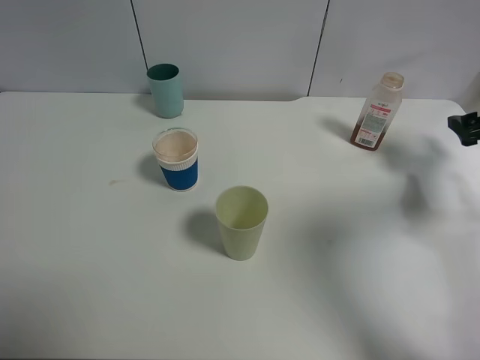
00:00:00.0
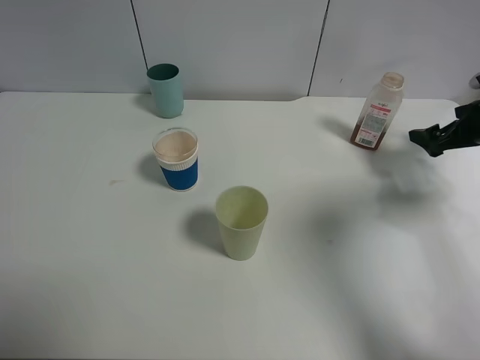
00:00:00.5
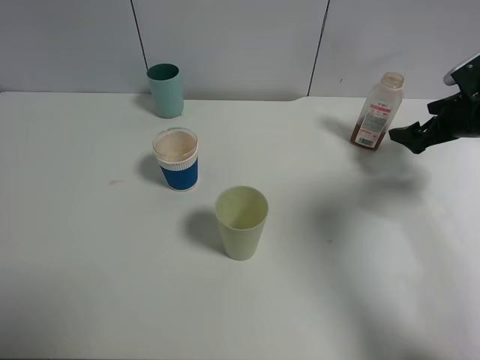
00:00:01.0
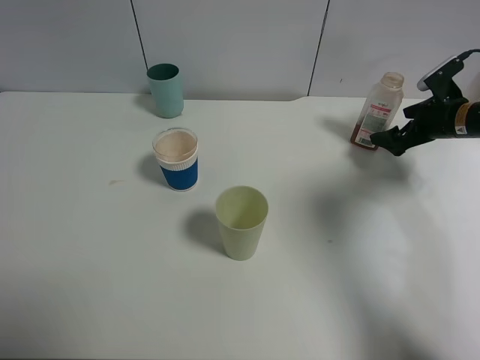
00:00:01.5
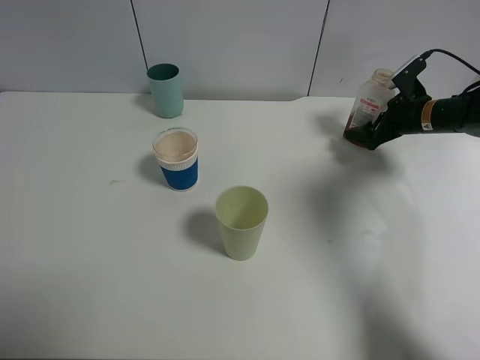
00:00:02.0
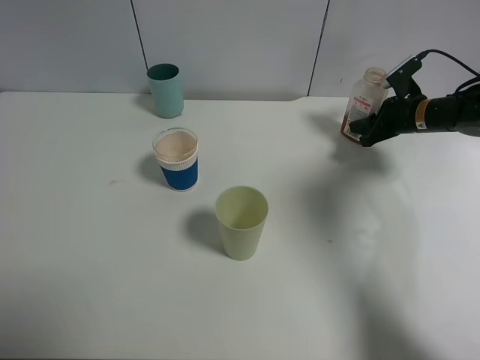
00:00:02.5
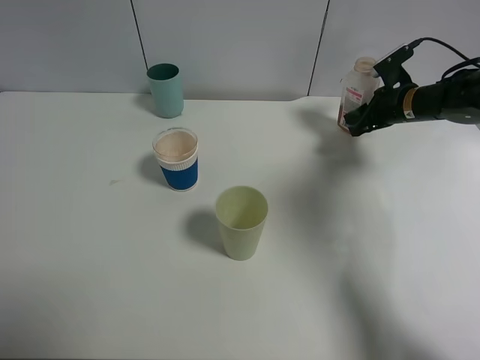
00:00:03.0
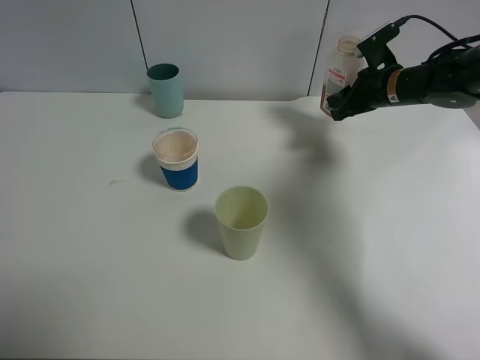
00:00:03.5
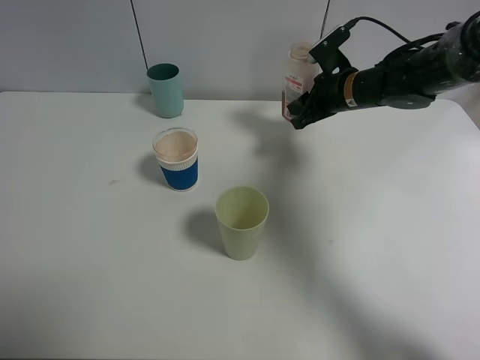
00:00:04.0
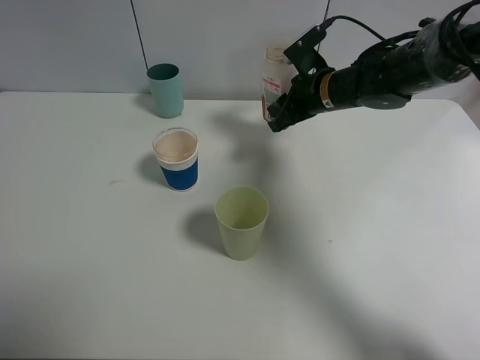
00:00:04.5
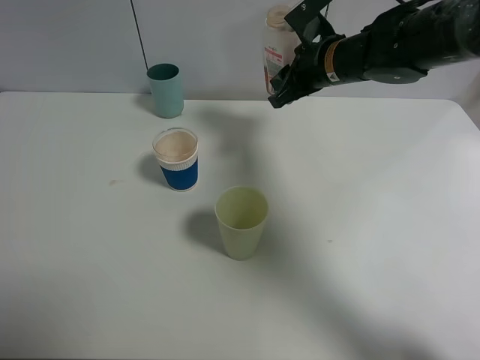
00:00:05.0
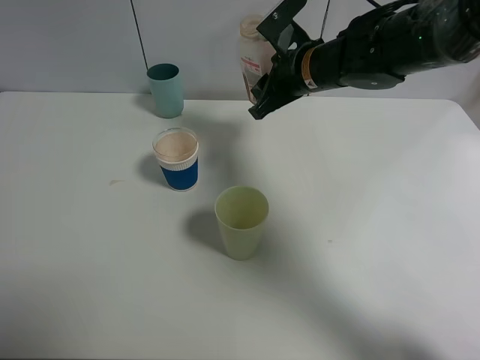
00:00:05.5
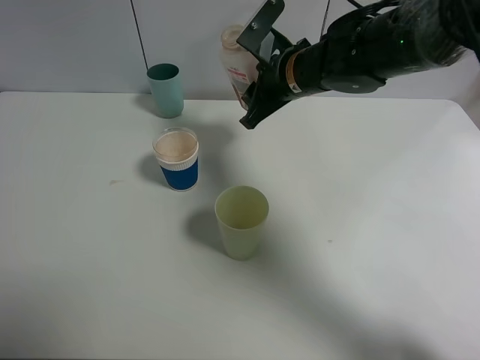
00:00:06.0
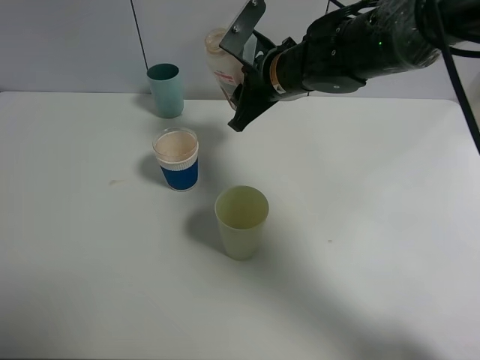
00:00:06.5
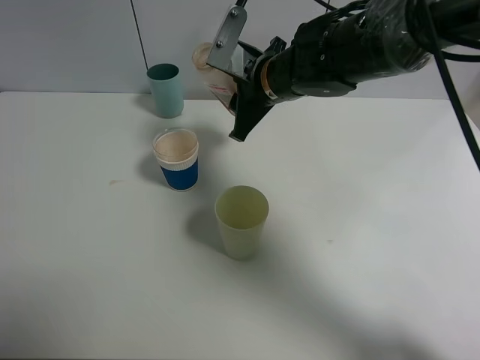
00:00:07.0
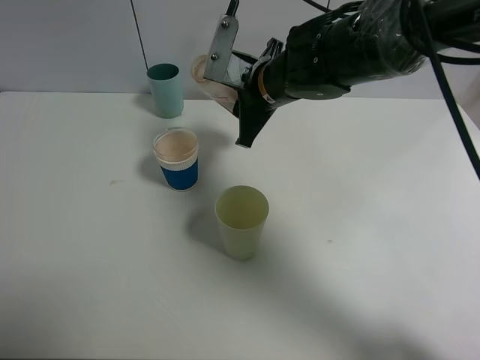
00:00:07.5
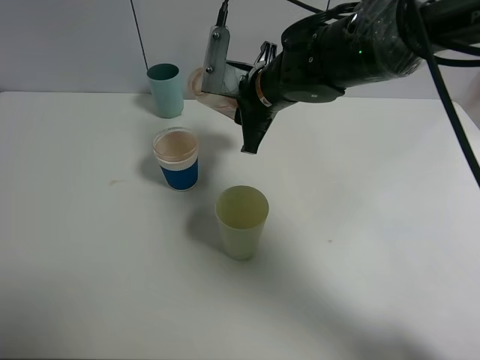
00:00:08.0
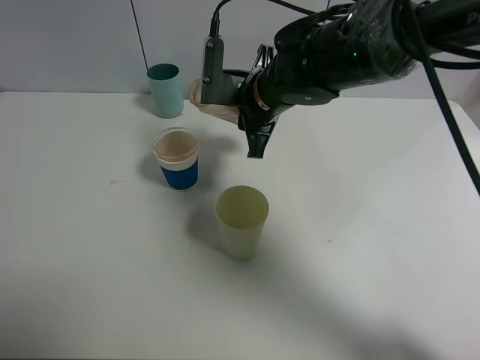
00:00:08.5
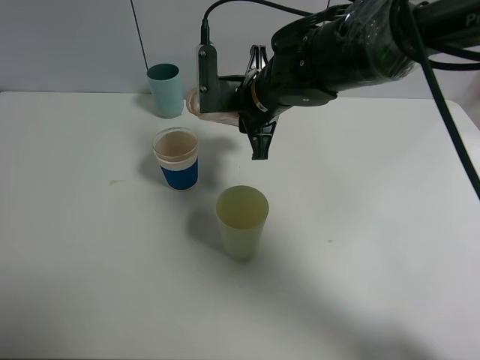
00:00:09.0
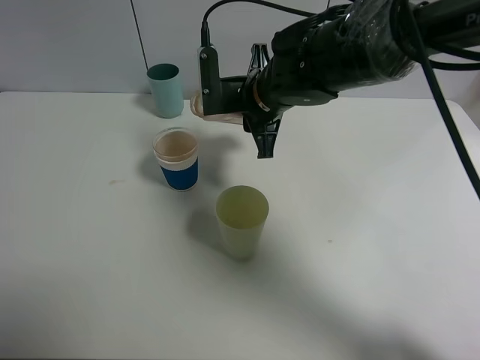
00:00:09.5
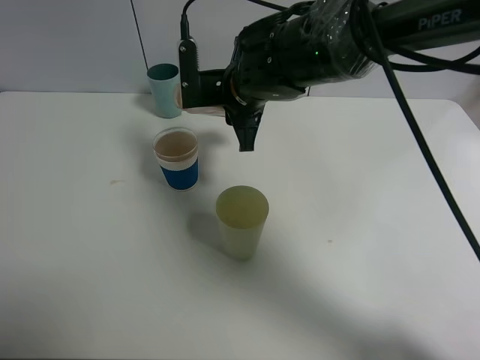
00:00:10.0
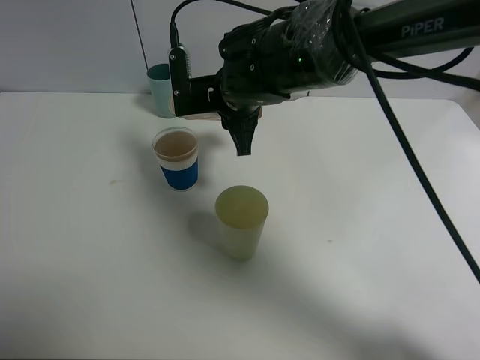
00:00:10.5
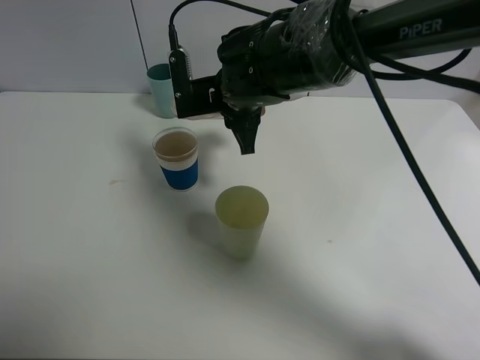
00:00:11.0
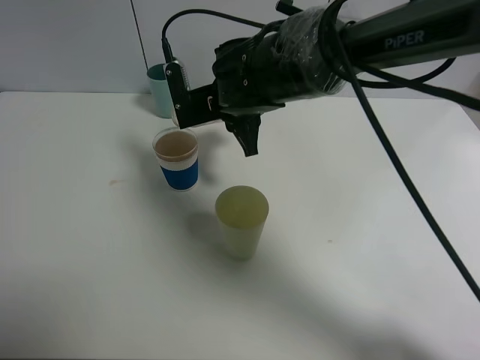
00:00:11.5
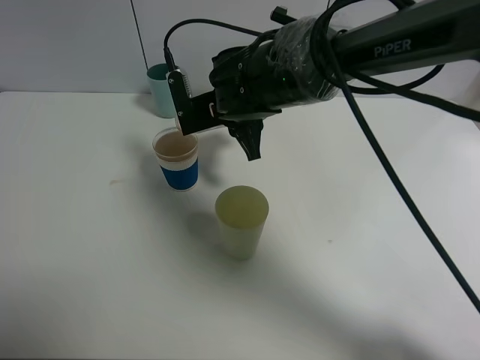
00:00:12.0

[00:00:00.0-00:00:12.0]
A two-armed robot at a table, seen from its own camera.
Task of the whole recording: use a clamp to hold the bottle of the drink, pour the beverage into a random cup, then clamp the cup containing the drink and pour the drink into another random cup.
Step, 00:00:00.0 to 00:00:03.0: Pick up the drink bottle with right gripper.
00:00:00.0 to 00:00:02.0: The right gripper travels to the left, forward and downward by roughly 15 cm.
00:00:02.0 to 00:00:04.0: The right gripper heads to the left, covering about 15 cm, and closes up.
00:00:04.0 to 00:00:06.0: The right gripper heads to the left, backward and upward, covering some 15 cm.
00:00:08.0 to 00:00:10.0: There are only small adjustments of the grippers.
00:00:10.0 to 00:00:12.0: There are only small adjustments of the grippers.

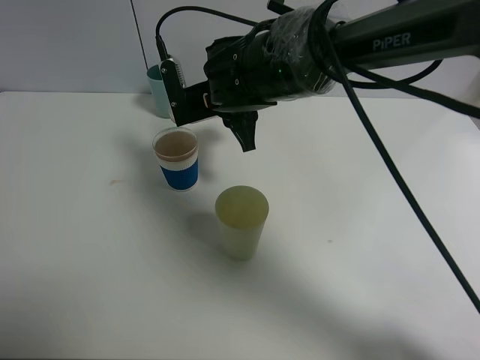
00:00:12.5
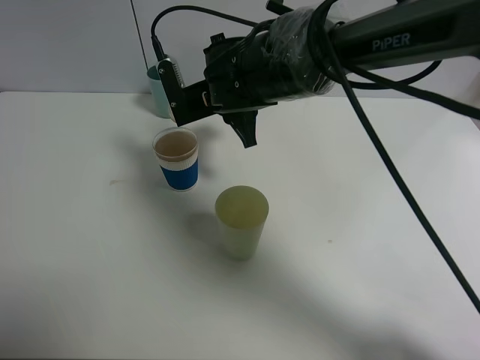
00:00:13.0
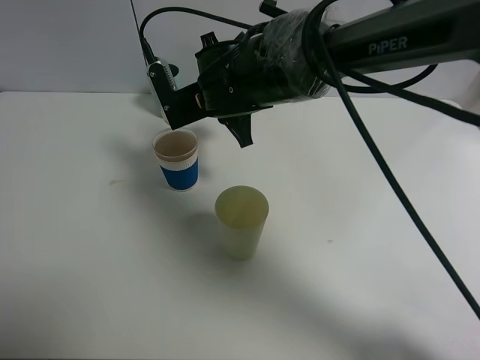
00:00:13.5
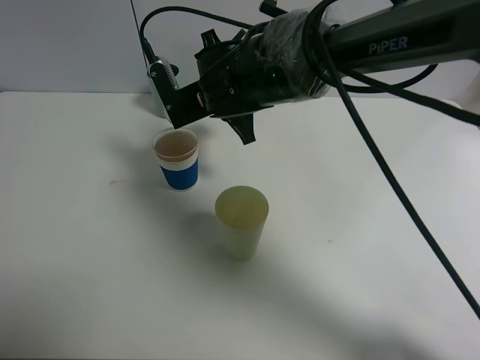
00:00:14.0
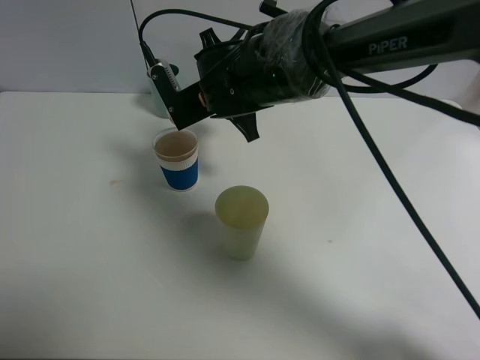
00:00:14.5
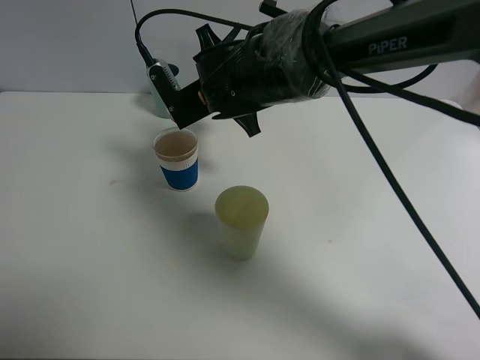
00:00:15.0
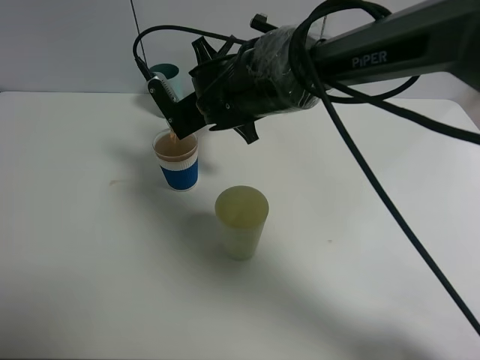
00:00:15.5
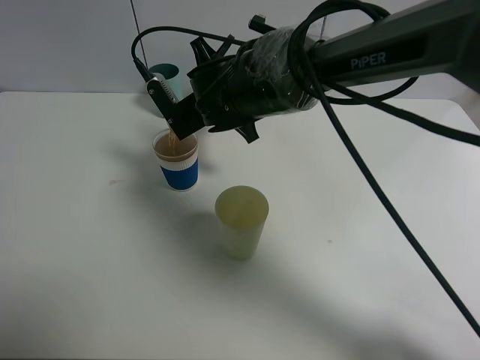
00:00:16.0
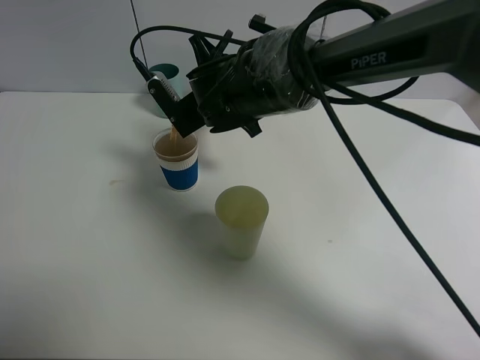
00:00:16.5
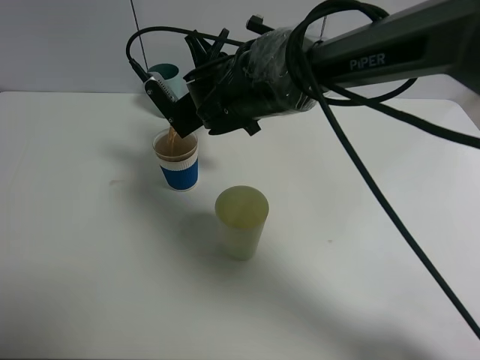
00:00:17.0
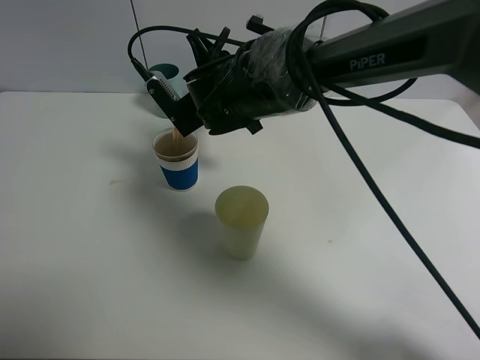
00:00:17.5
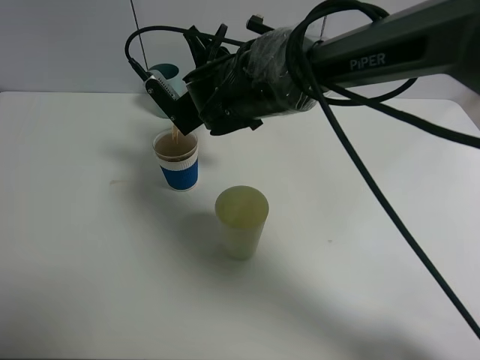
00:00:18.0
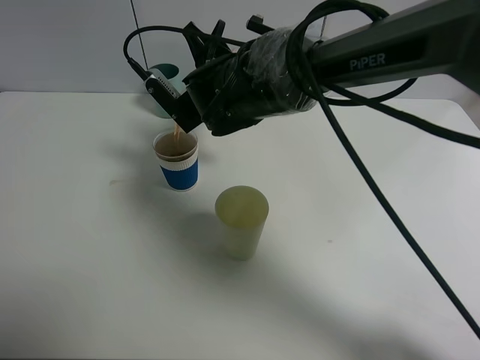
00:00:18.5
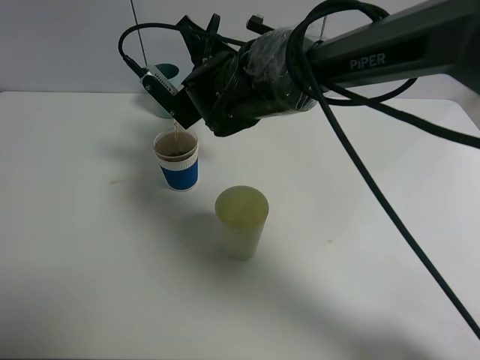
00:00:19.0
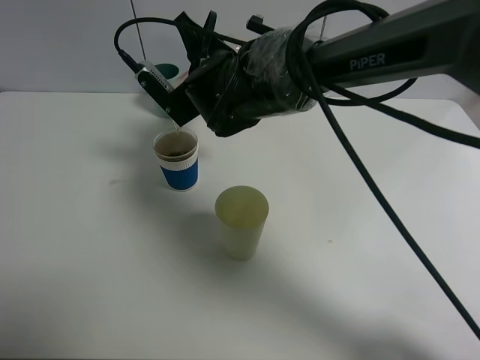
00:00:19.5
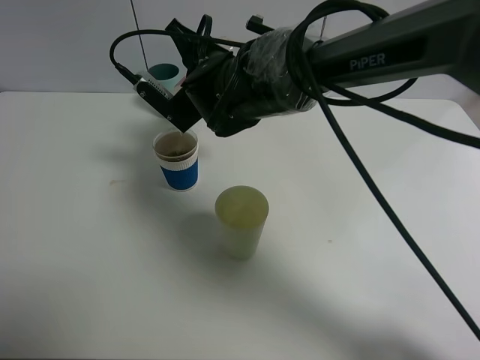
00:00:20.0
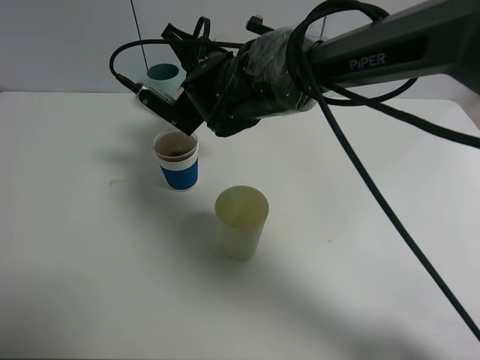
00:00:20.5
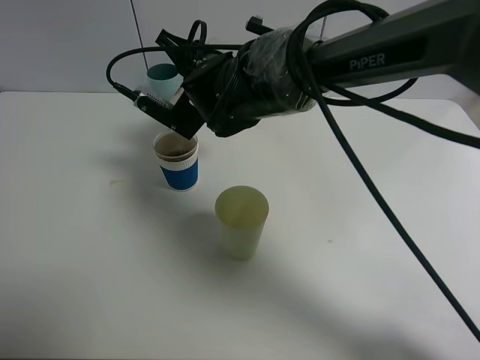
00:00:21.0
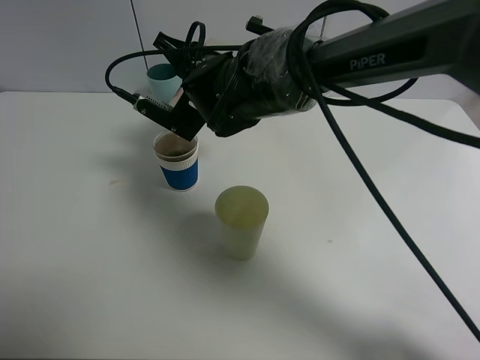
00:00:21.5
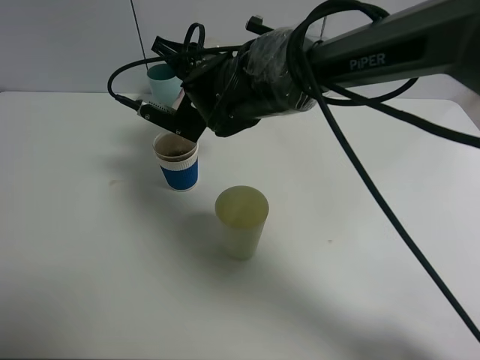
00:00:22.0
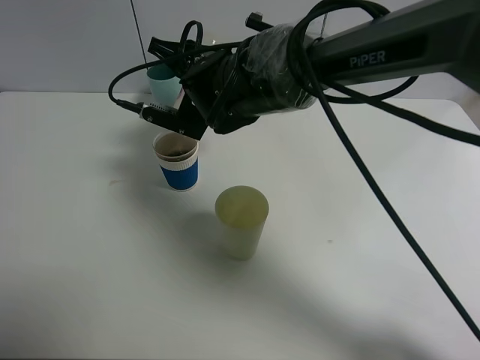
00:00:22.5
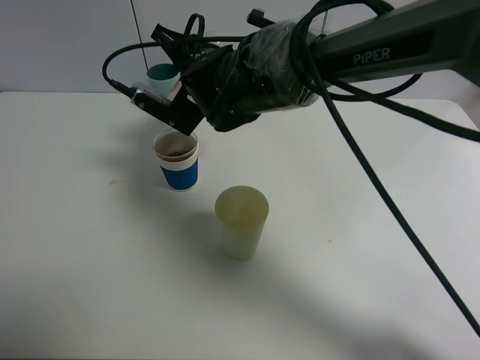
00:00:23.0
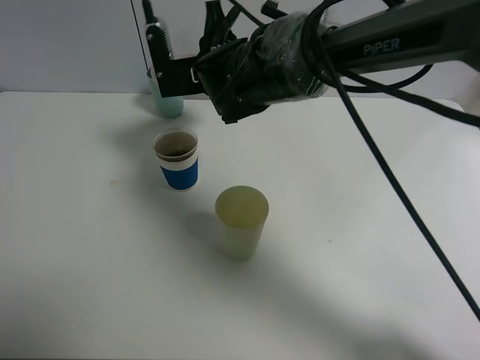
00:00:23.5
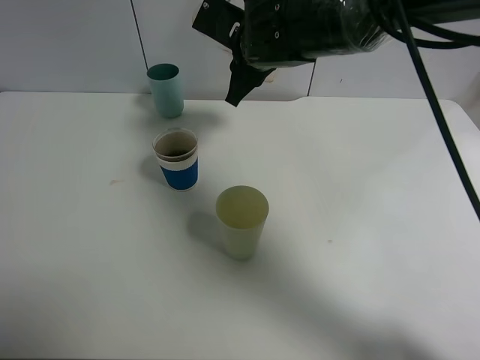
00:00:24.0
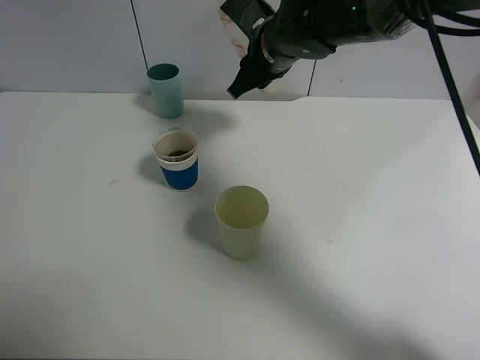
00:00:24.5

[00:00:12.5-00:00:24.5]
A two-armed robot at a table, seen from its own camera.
Task of the whole recording: use a clamp to hold the bottle of the drink, pour the beverage into a random cup, then clamp the cup containing the drink and pour the drink into another random cup.
Step, 00:00:12.5 to 00:00:23.0: Pour the drink into the paper cup with right gripper.
00:00:12.5 to 00:00:14.5: The grippers stay close to where they were, moving slightly.
00:00:14.5 to 00:00:18.5: The grippers stay close to where they were, moving slightly.
00:00:18.5 to 00:00:20.5: The grippers move only a little.
00:00:20.5 to 00:00:22.5: The grippers move only a little.
00:00:22.5 to 00:00:24.5: The right gripper moves to the right, some 10 cm.

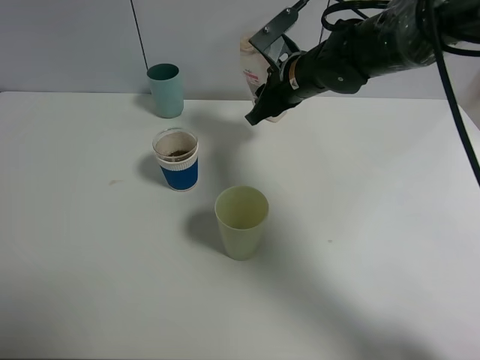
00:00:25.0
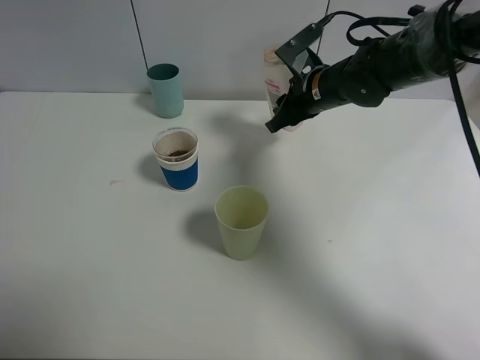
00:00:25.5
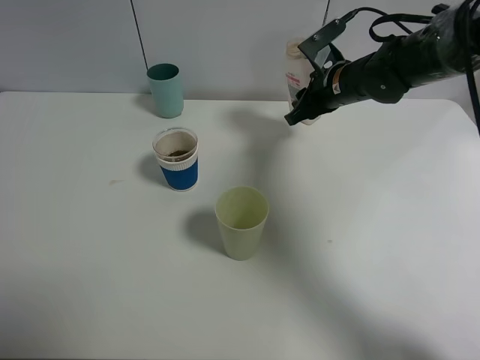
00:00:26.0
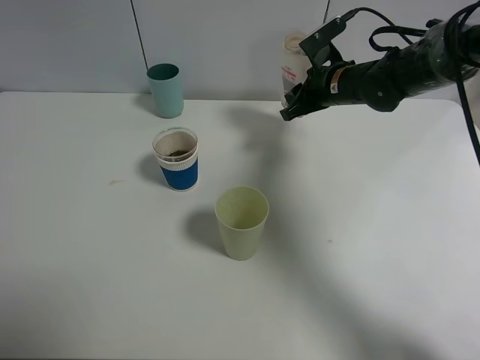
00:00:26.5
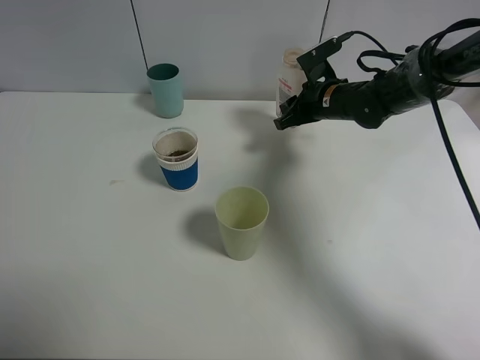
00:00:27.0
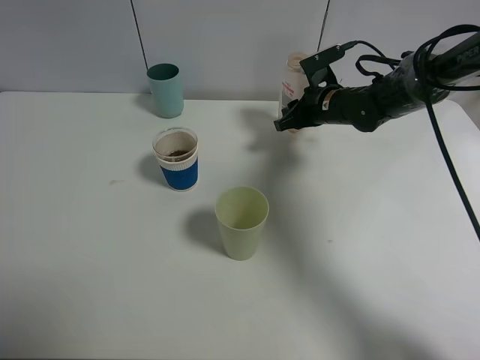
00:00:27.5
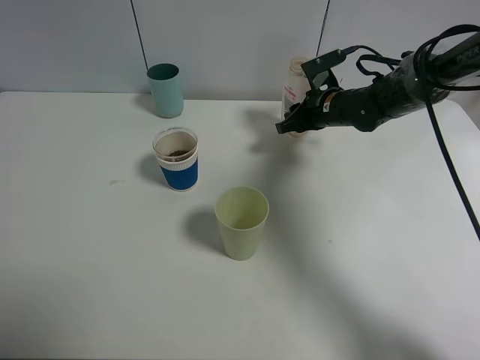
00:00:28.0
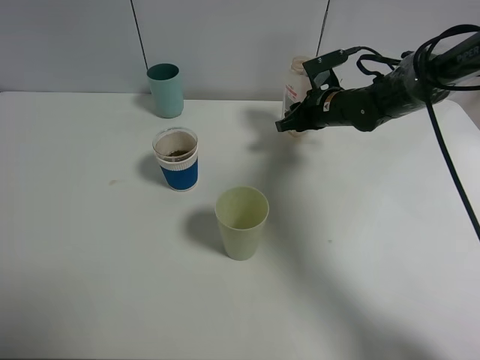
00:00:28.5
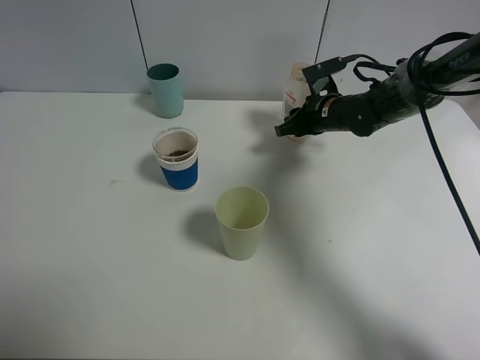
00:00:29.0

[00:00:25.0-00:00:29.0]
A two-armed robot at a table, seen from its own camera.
Task of the whole recording: use a clamp to hold the bottle of the drink, pour the beverage into a random cup, then clamp the cup containing the drink and pour the drink into another random cup.
00:00:25.0 to 00:00:27.0: The right gripper moves to the right and downward, some 10 cm.
00:00:27.0 to 00:00:29.0: There are only small adjustments of the grippers.
